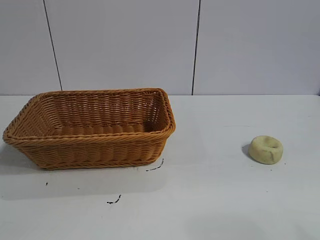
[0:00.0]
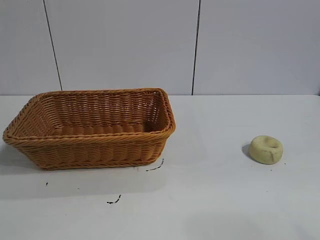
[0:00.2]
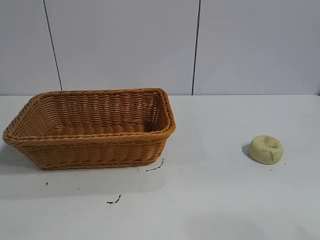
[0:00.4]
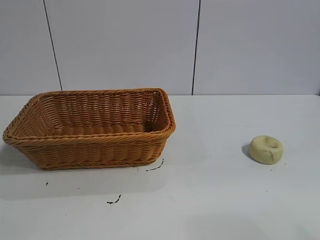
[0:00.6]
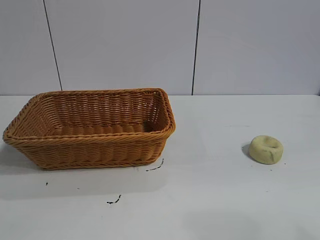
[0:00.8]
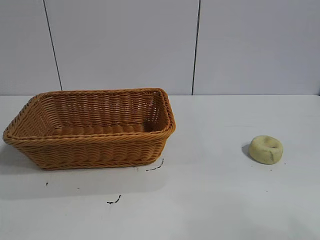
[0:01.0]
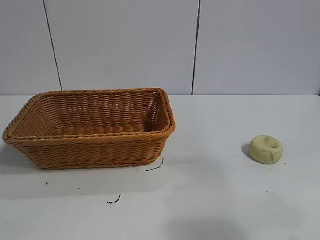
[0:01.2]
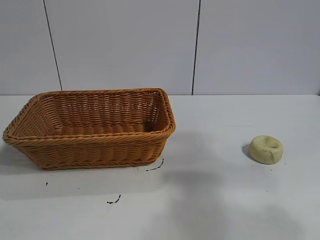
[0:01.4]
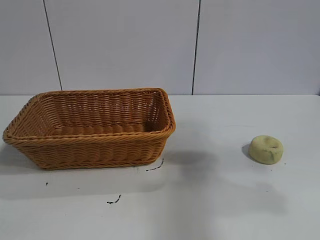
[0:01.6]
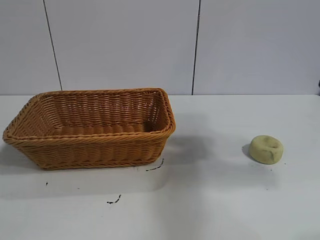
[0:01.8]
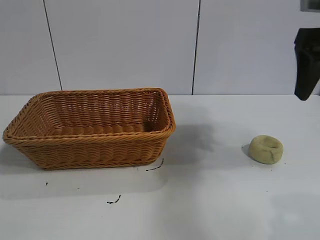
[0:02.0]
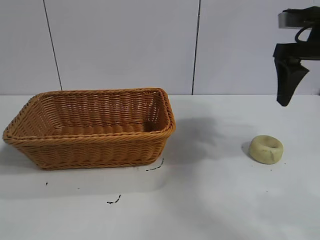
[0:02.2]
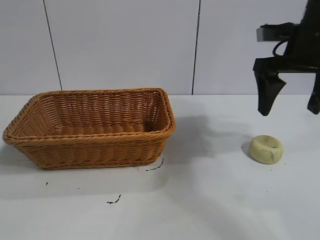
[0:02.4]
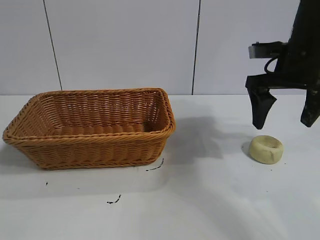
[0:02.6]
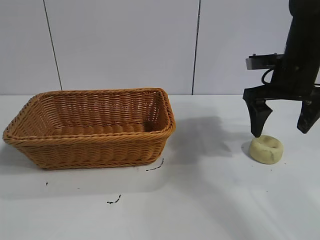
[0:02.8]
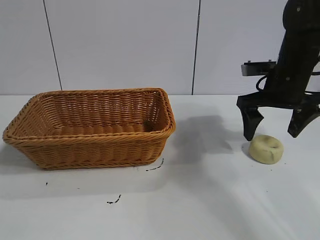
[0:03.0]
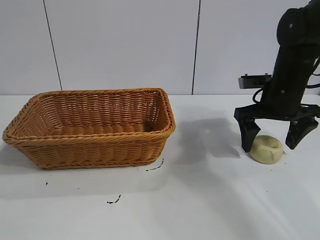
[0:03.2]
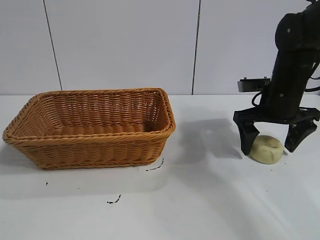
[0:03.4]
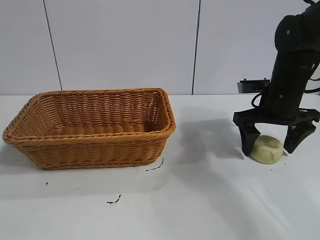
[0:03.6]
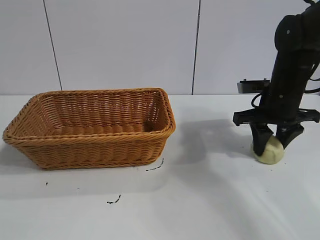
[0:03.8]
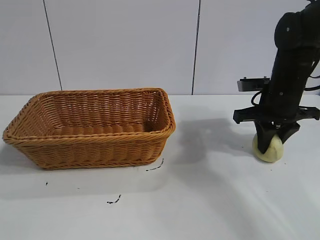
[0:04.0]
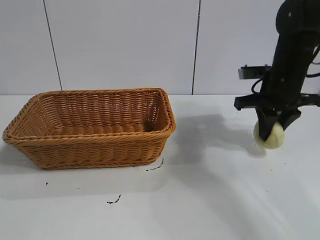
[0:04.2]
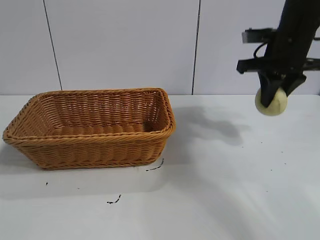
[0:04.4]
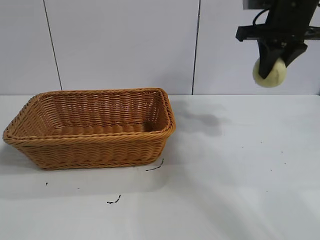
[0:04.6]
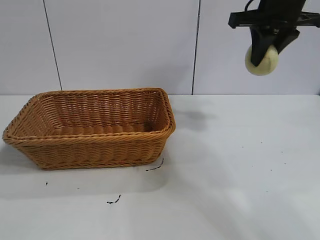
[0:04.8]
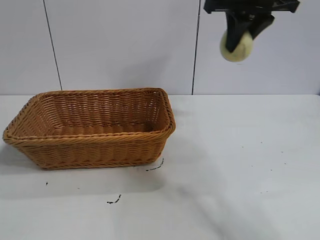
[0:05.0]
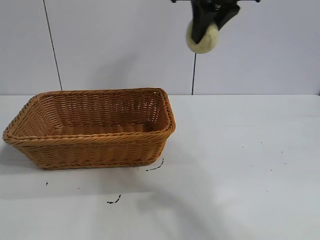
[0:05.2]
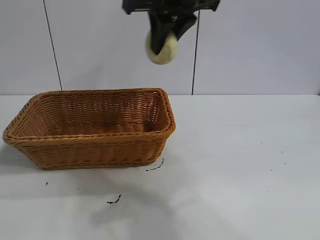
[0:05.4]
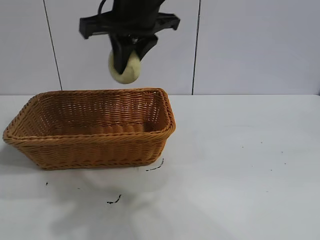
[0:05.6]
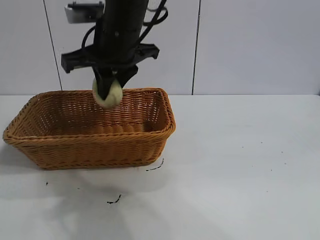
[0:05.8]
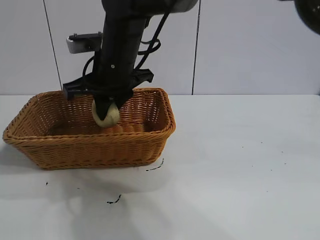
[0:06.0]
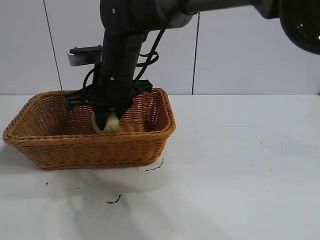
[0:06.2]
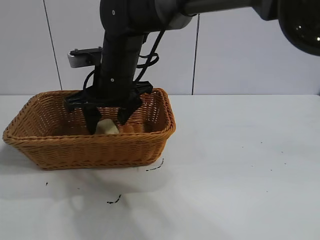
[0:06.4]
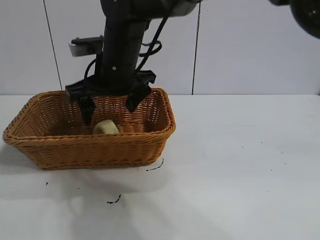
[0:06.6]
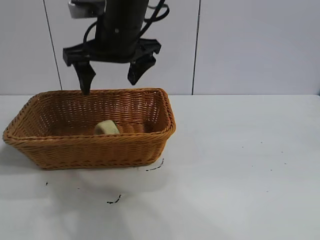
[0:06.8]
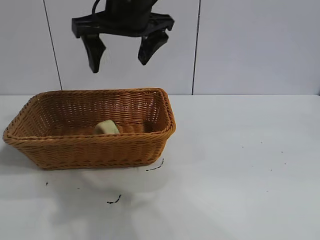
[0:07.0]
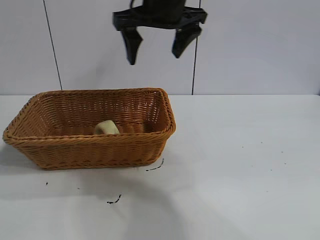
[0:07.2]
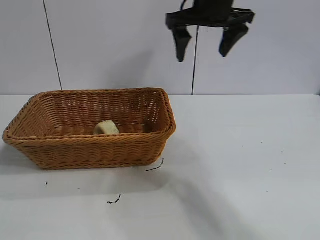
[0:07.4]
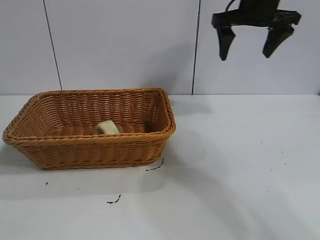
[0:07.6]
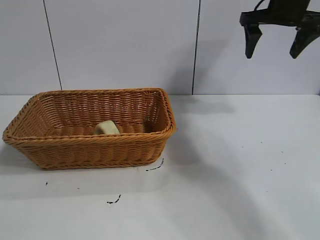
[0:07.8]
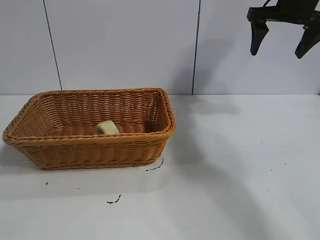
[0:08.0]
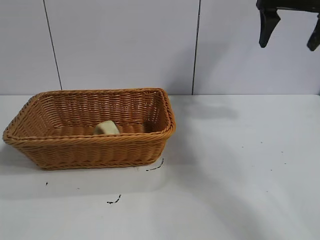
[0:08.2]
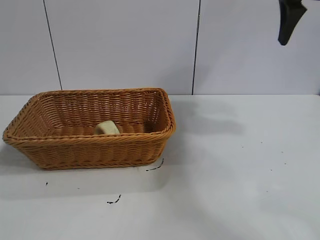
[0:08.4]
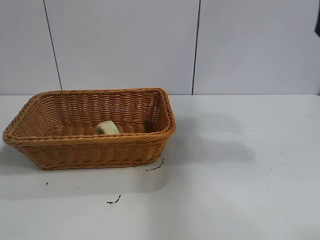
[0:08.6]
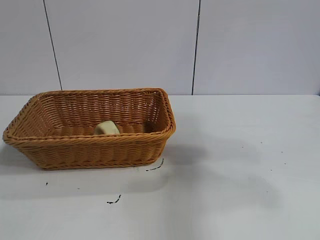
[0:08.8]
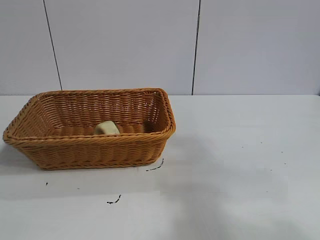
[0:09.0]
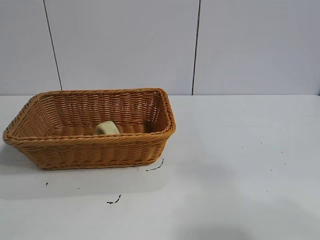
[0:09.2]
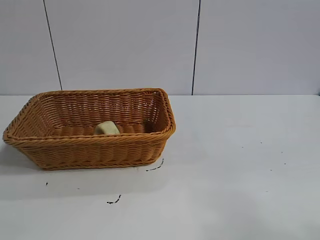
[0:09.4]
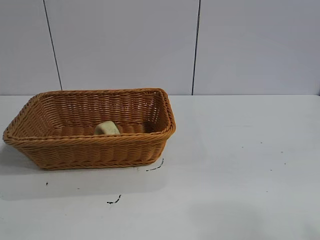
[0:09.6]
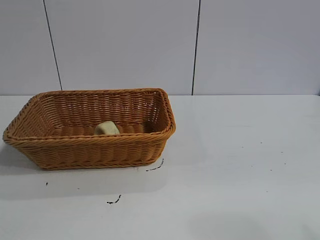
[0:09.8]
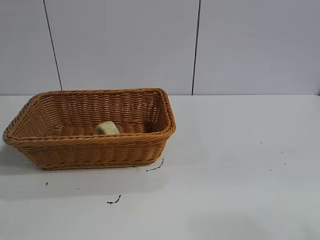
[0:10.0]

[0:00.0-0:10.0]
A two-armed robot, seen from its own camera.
Task of the whole recording: pick up the egg yolk pastry and put it into the basket.
Step, 0:00.8 to 0:03.8: Grasp egg yolk pastry with right gripper.
Step, 0:04.2 to 0:06.6: Place the egg yolk pastry in the basket with right gripper.

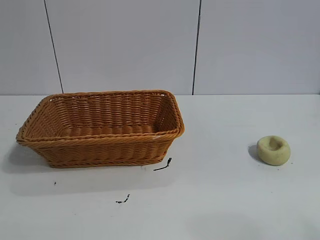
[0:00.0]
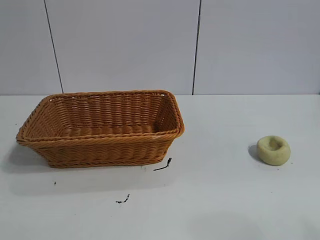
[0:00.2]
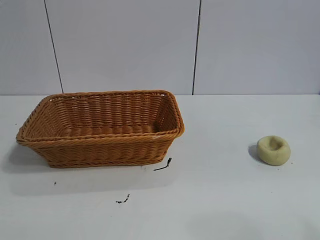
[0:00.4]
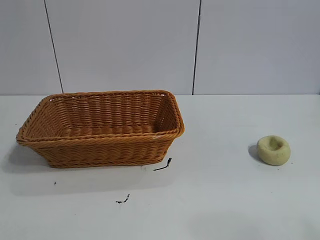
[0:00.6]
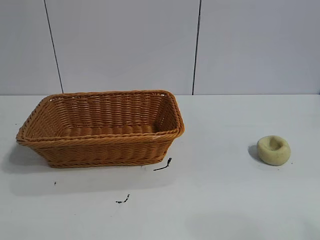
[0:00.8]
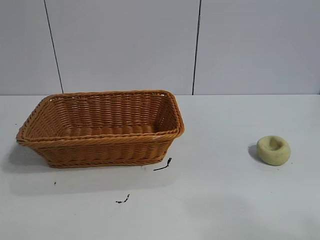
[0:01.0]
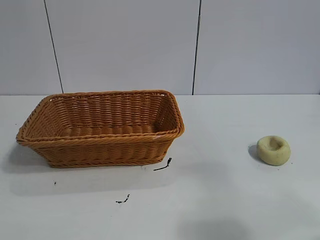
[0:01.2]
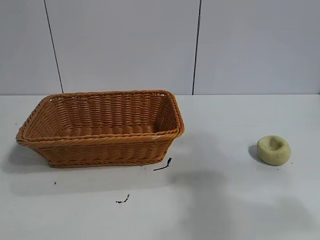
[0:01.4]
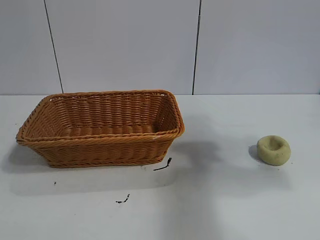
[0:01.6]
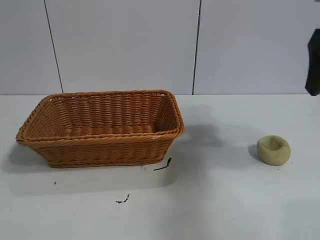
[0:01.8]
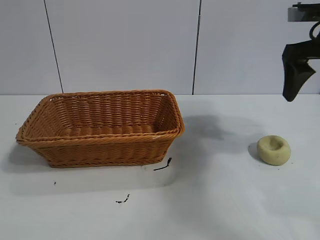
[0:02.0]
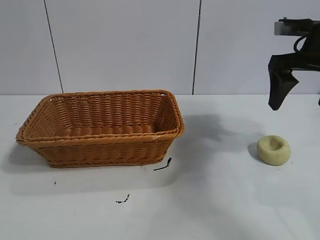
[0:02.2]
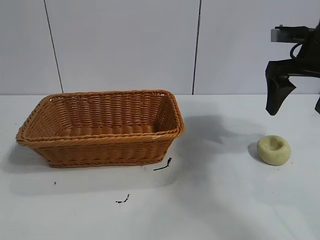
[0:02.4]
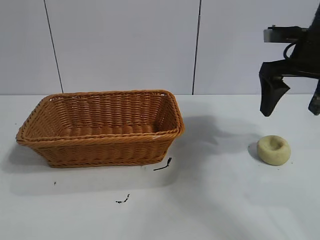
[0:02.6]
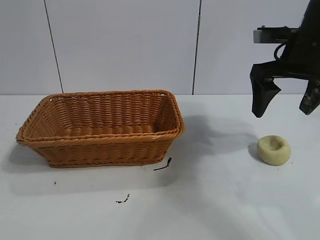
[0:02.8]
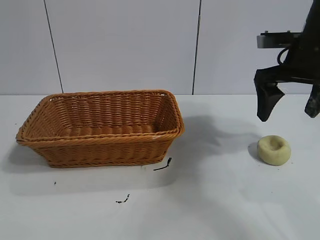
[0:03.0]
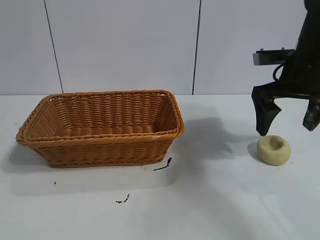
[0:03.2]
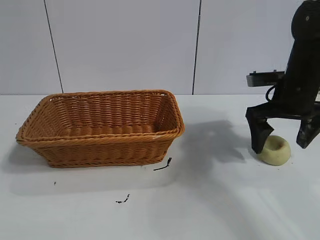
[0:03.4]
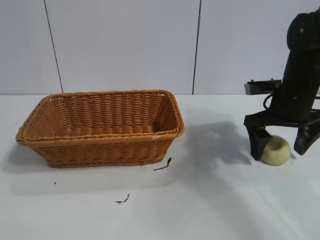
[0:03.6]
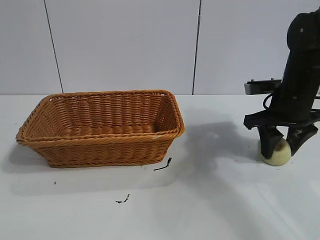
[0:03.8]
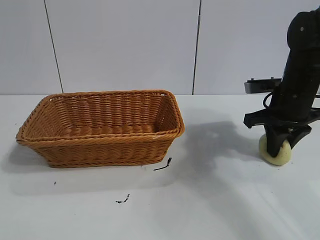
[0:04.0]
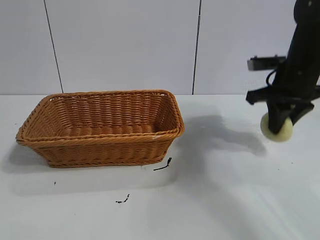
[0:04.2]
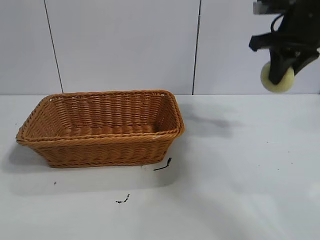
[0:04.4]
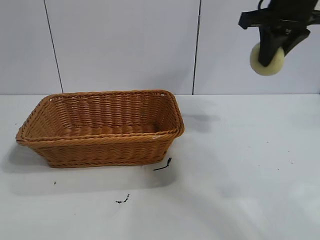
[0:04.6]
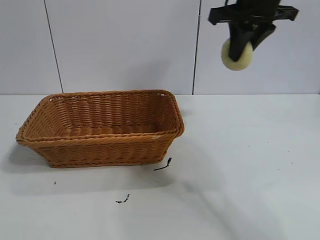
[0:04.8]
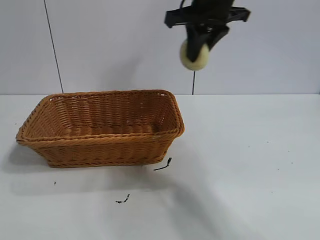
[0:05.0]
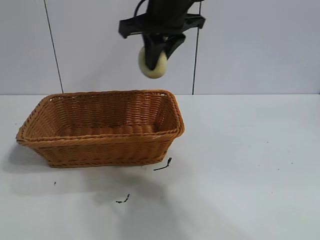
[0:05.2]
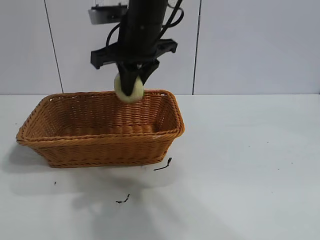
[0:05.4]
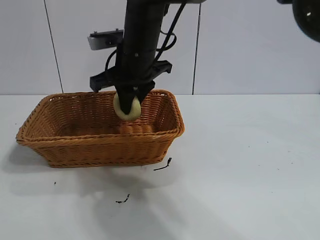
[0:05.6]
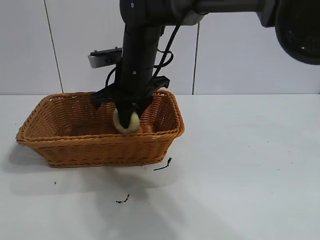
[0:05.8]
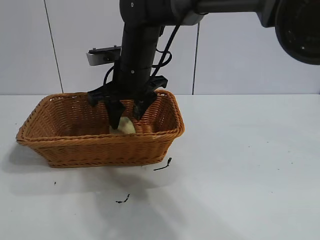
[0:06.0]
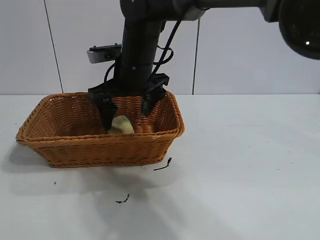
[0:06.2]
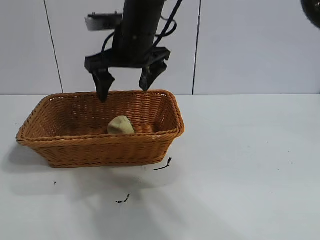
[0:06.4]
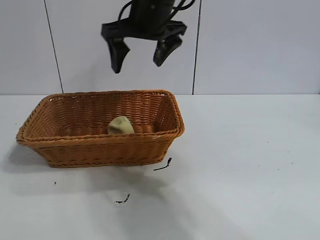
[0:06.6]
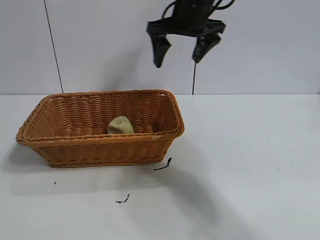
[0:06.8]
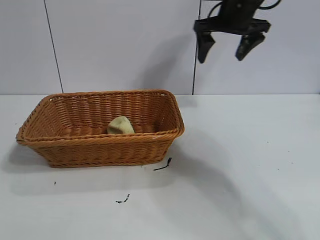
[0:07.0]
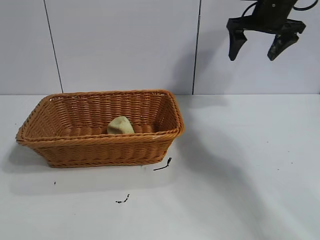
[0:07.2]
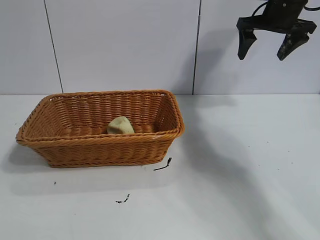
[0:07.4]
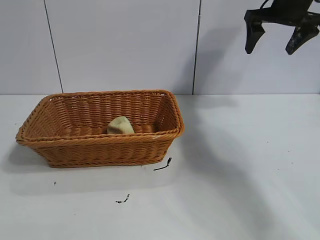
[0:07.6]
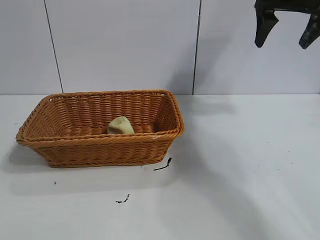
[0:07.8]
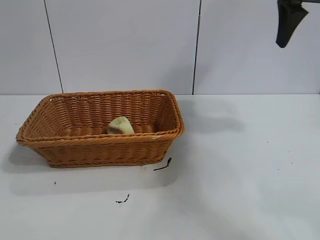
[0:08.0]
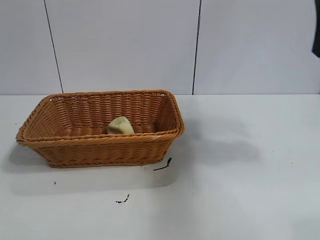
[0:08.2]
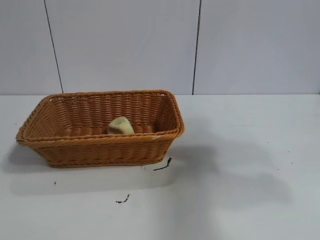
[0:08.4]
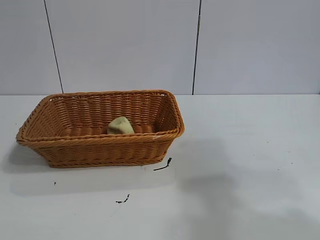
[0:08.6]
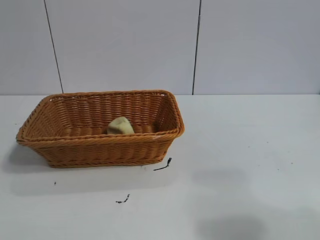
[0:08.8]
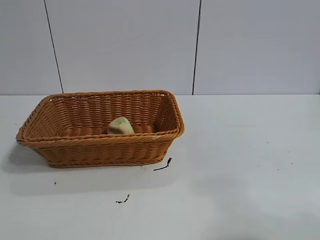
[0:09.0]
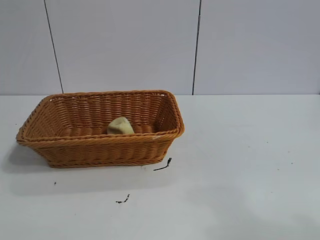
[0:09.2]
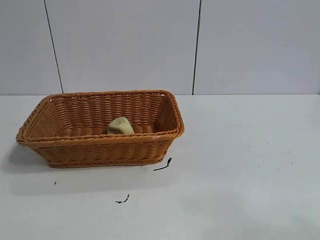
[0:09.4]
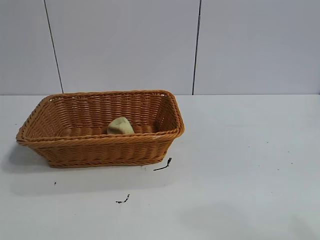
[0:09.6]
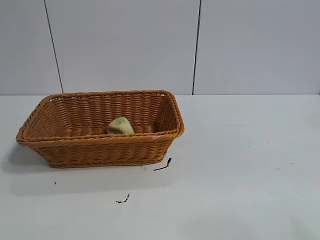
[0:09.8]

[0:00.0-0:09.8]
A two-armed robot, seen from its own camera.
Task of the whole recording: pick up the egg yolk pastry and put it into the basket.
Step, 0:01.0 to 0:03.8: Grasp egg yolk pastry with right gripper.
Step, 0:04.2 to 0:06.0: Place the egg yolk pastry in the basket with right gripper.
